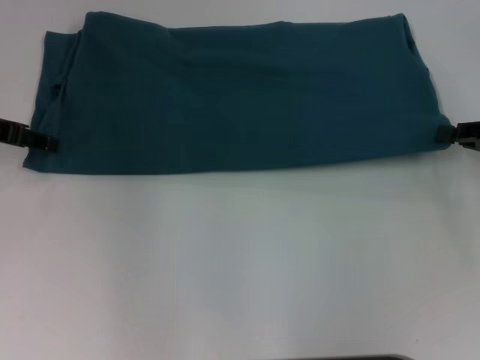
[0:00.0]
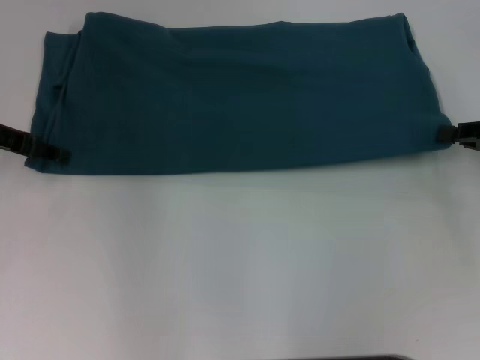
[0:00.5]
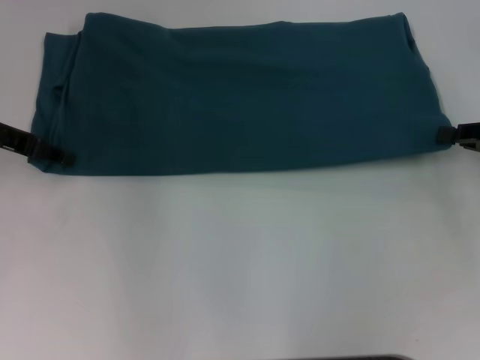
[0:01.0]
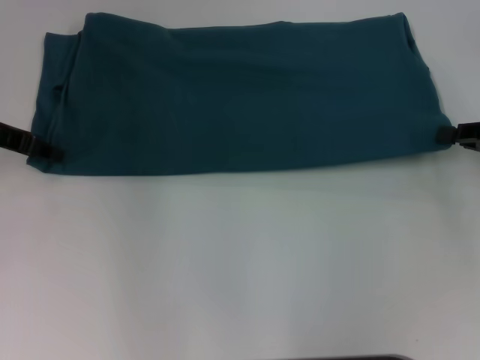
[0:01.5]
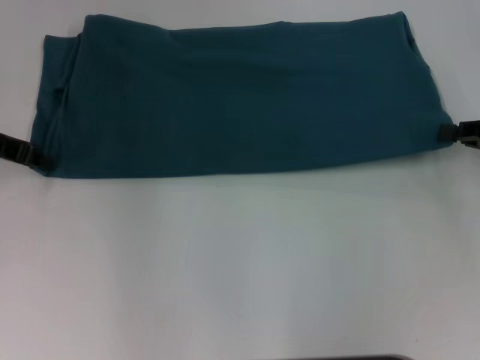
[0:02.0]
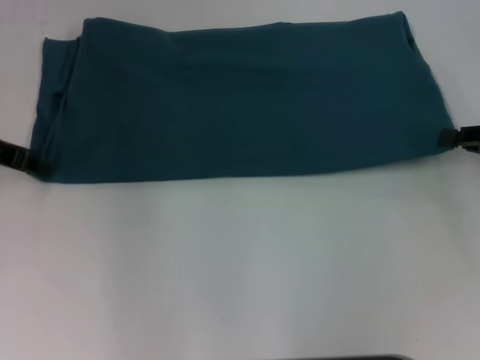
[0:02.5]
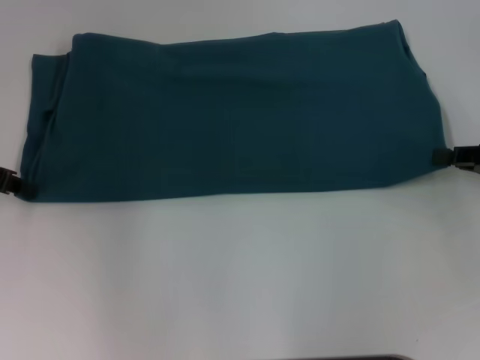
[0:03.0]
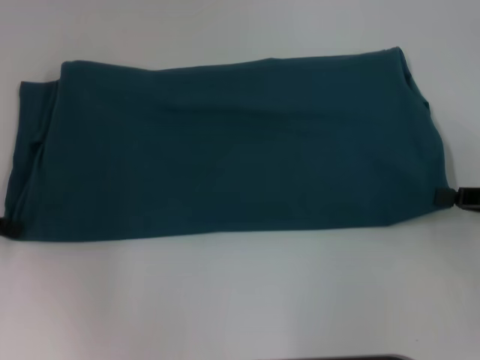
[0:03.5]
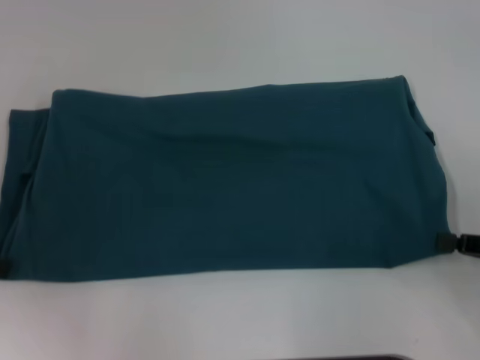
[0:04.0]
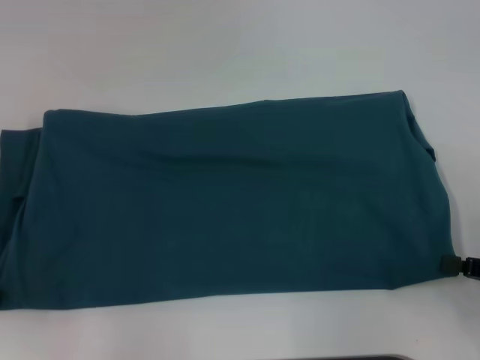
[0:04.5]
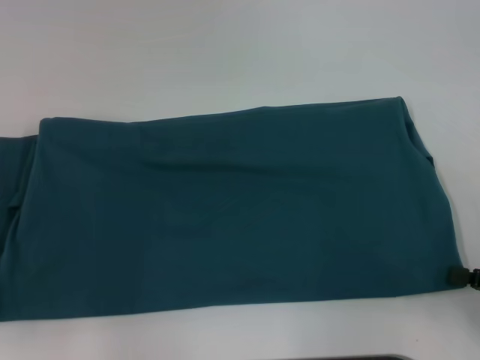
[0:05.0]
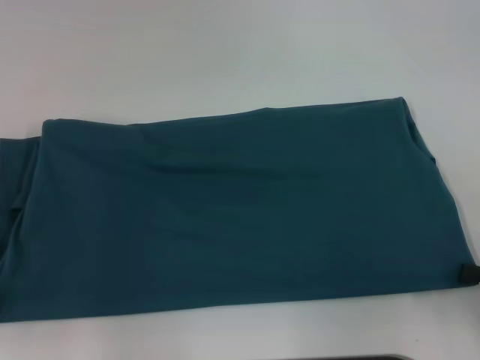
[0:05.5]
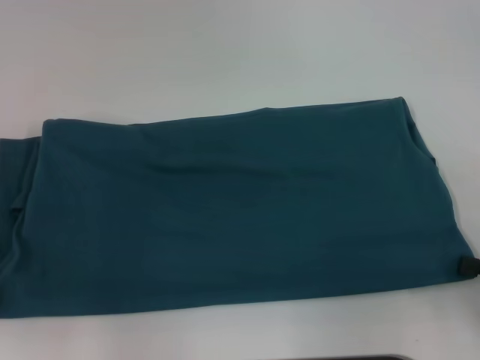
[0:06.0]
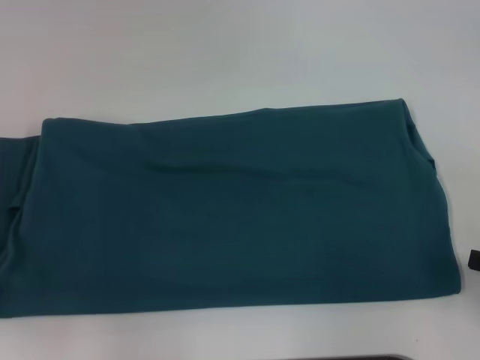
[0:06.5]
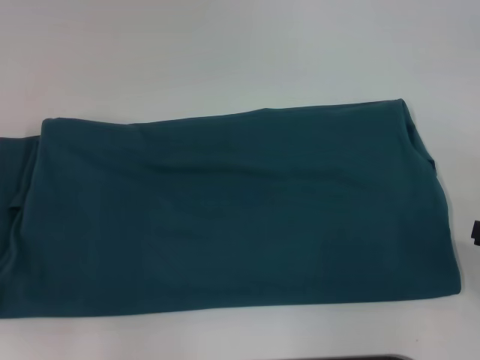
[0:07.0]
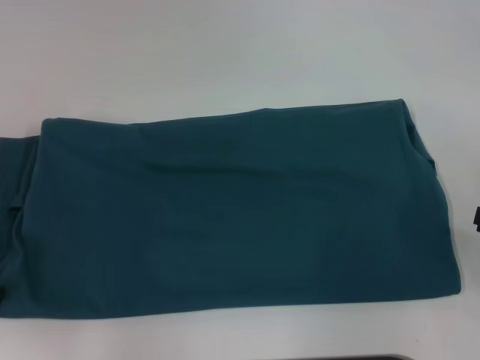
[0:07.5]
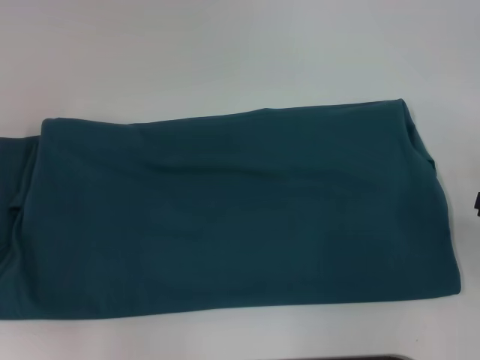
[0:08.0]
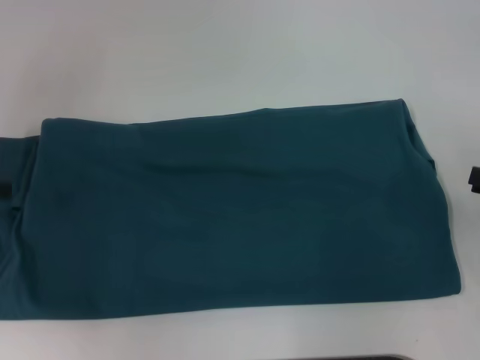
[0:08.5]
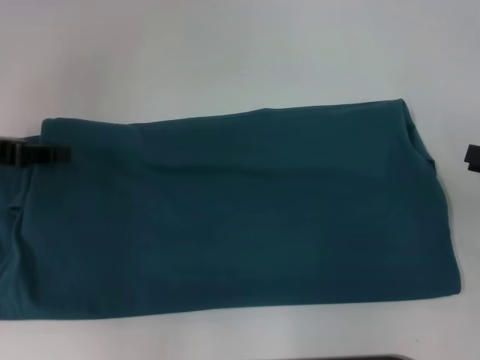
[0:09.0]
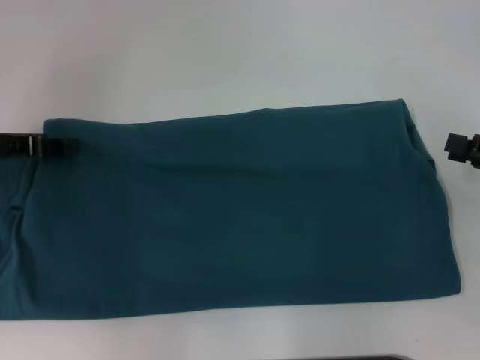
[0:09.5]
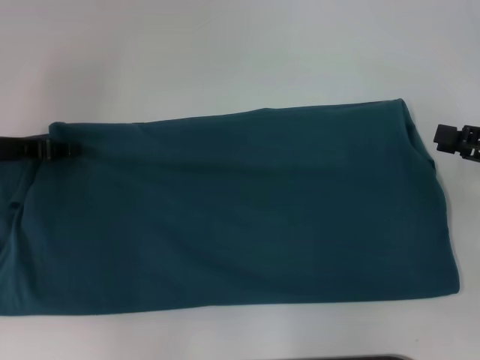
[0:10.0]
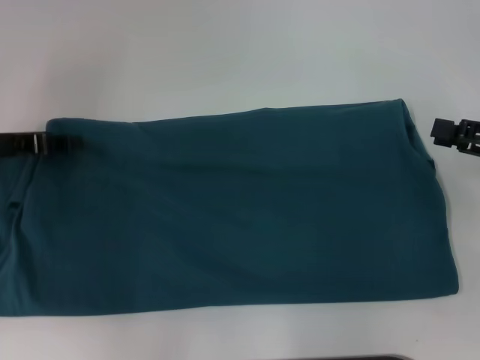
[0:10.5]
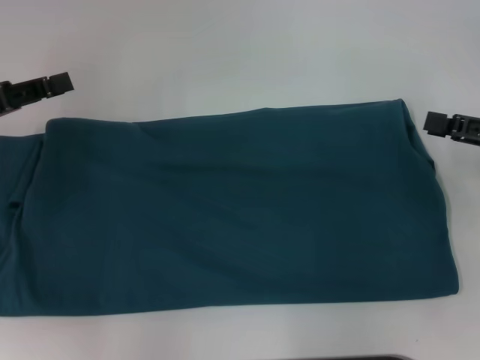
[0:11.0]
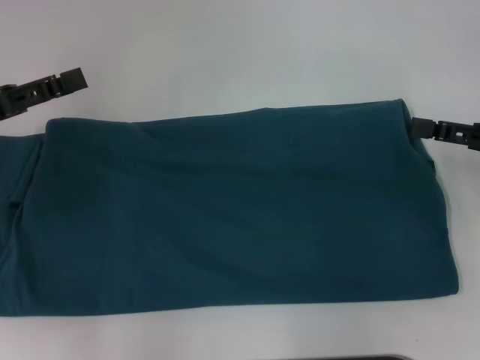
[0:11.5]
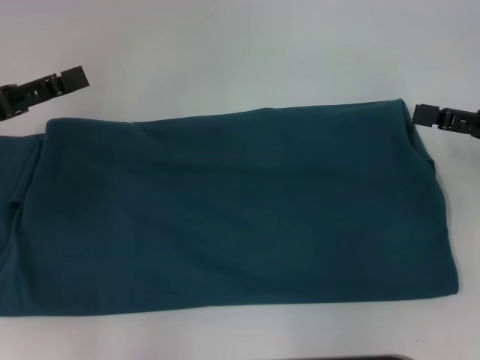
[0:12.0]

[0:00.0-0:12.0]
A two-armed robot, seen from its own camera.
Step, 0:00.0 to 0:05.5: Pull the clothes with your left hand.
Step, 0:00.0 to 0:05.5: Pull the clothes with your right hand.
0:00.0 to 0:02.0: The left gripper closes up.
0:02.0 to 0:04.0: The left gripper moves backward and to the left, roughly 15 cm; the right gripper shifts roughly 10 cm backward.
0:04.0 to 0:06.0: The grippers stay close to where they were, moving slightly.
0:06.0 to 0:08.0: The right gripper changes place by about 5 cm.
0:08.0 to 0:10.0: The right gripper heads forward, covering some 5 cm. Meanwhile the left gripper goes approximately 15 cm forward and to the right.
0:10.0 to 0:12.0: The right gripper opens its fingers, while the left gripper heads backward, covering roughly 5 cm, and opens.

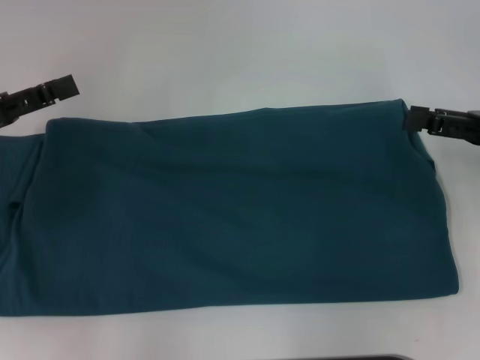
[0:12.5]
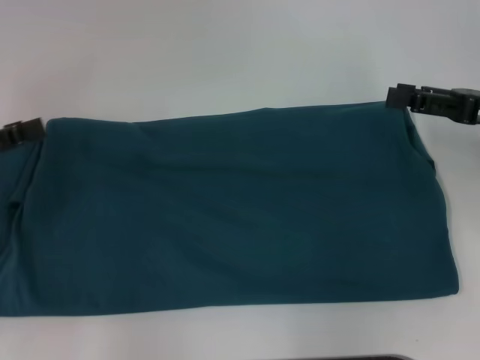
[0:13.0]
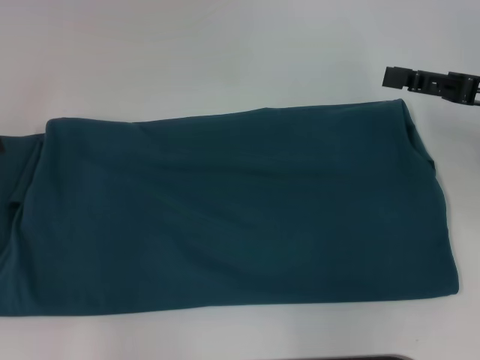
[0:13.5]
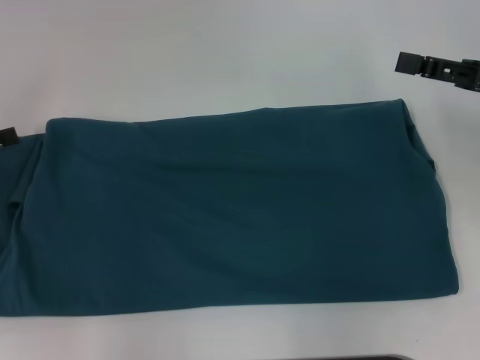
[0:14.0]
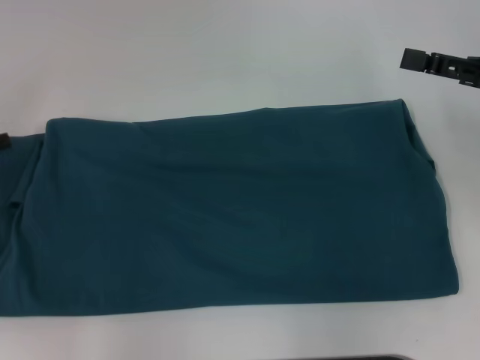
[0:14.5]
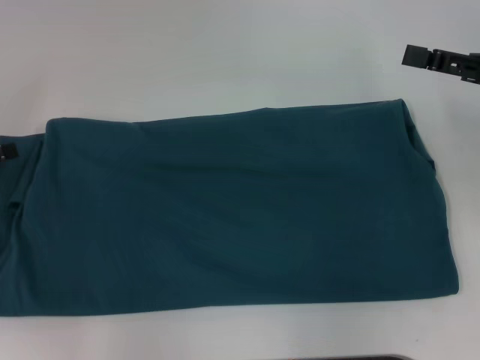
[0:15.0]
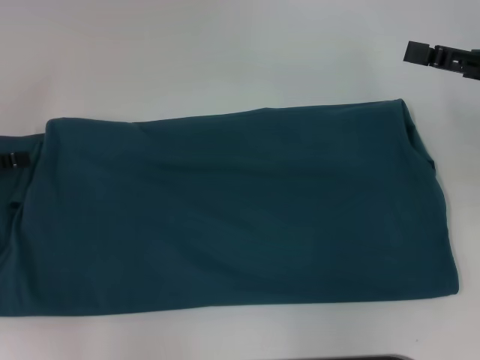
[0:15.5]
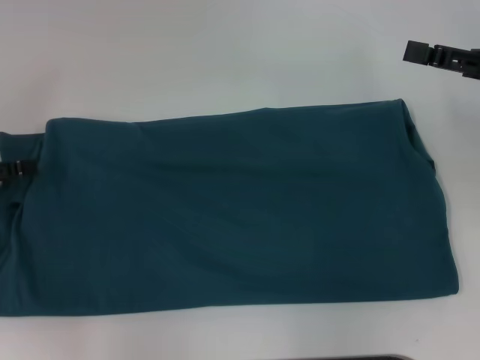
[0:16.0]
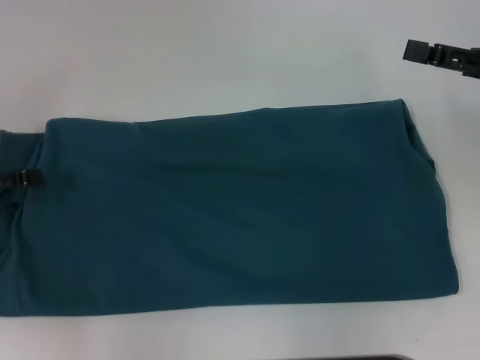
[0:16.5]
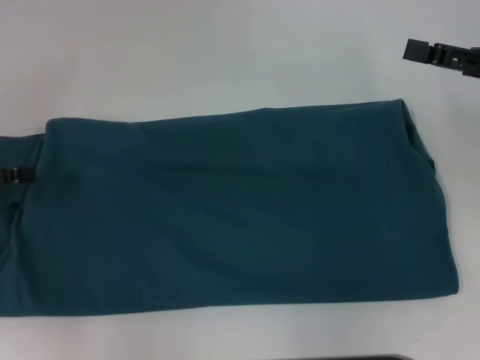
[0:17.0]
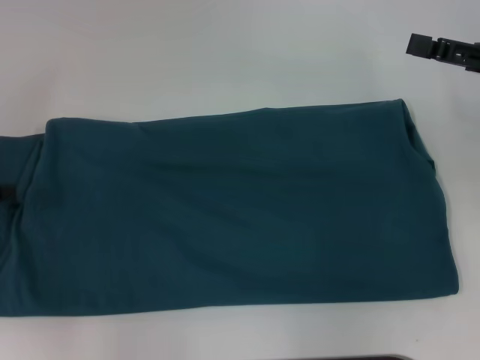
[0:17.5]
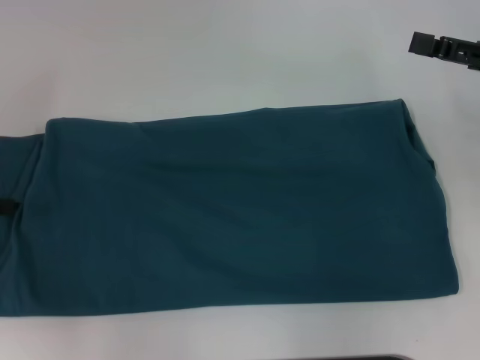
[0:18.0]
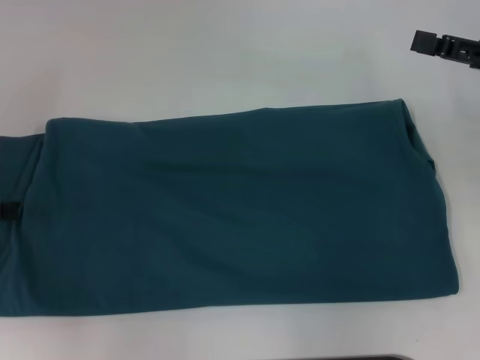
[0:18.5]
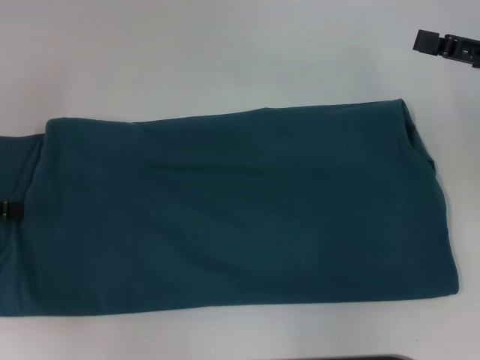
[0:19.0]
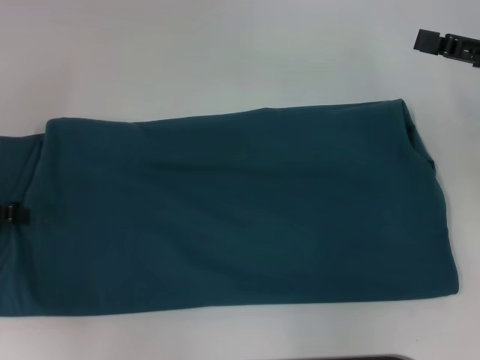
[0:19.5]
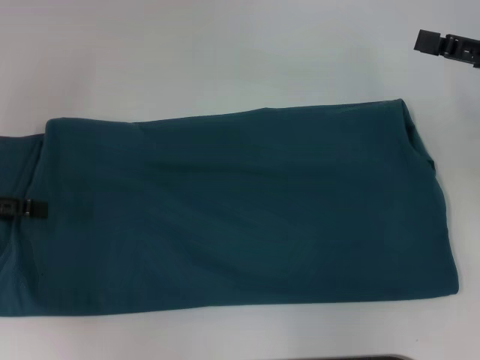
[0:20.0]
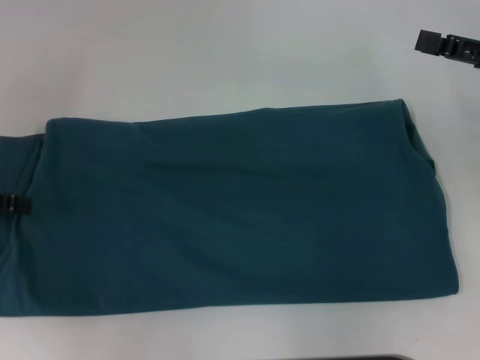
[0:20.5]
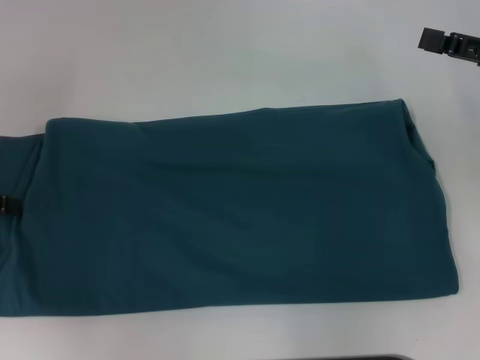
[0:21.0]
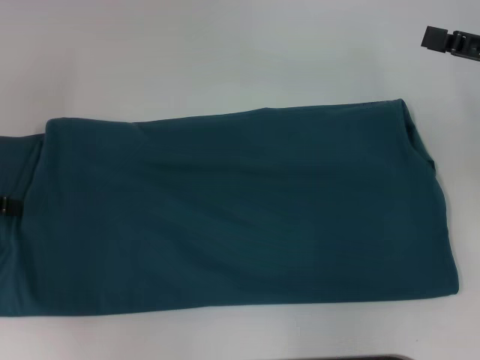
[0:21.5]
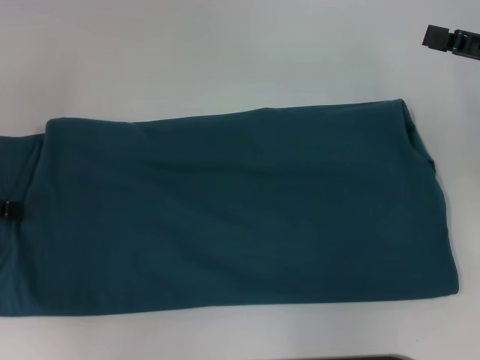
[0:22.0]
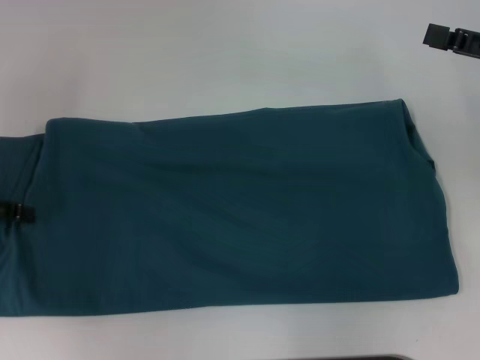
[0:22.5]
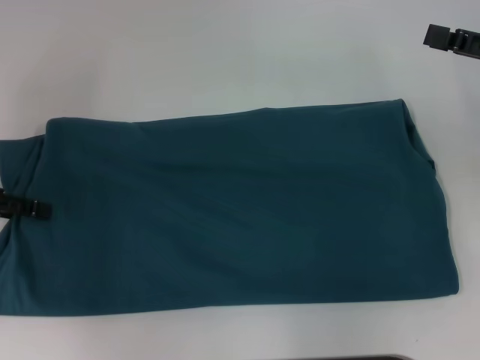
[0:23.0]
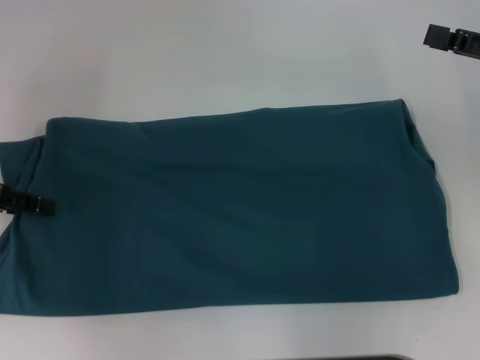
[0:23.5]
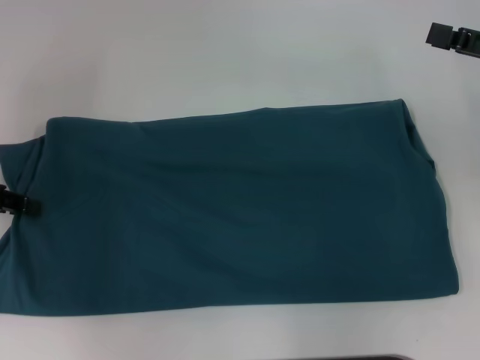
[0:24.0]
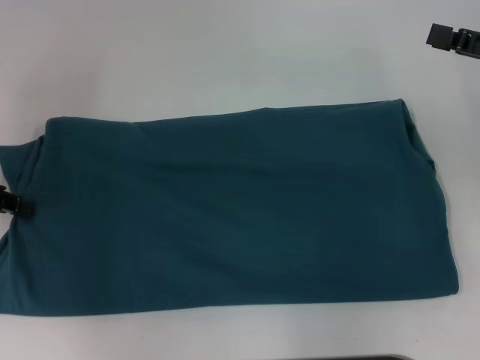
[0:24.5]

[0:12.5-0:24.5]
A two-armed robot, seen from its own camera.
0:12.5 to 0:14.5: The left gripper is displaced to the left by roughly 5 cm.
0:14.5 to 0:16.5: The grippers stay close to where they were, moving slightly.
0:16.5 to 0:18.5: The grippers make only small movements.

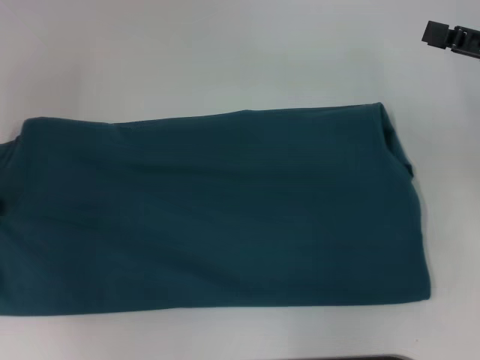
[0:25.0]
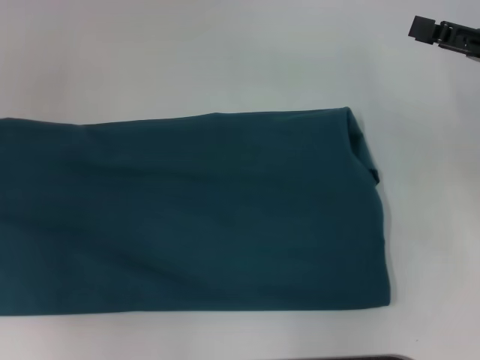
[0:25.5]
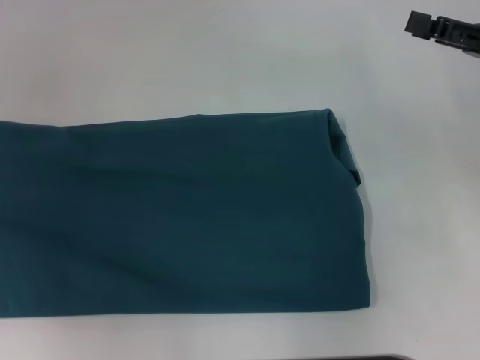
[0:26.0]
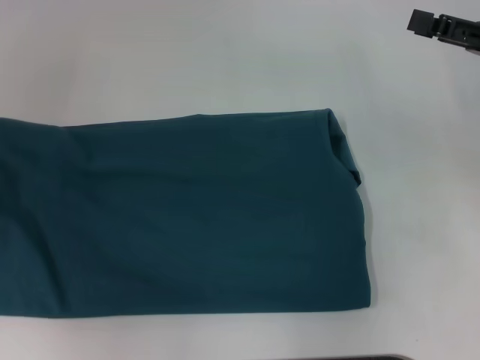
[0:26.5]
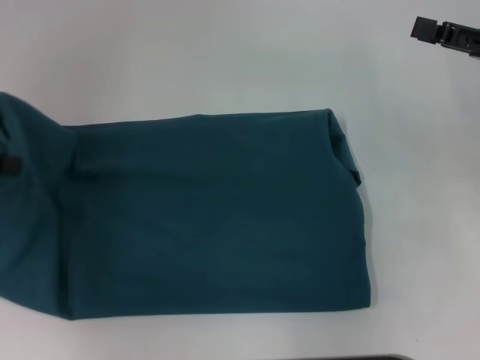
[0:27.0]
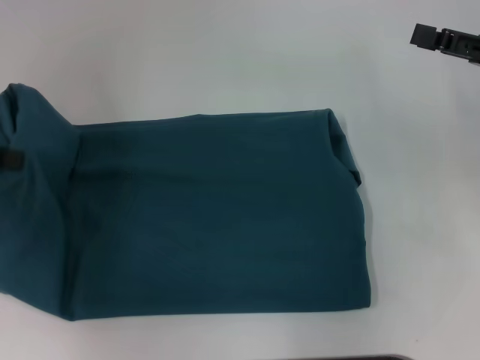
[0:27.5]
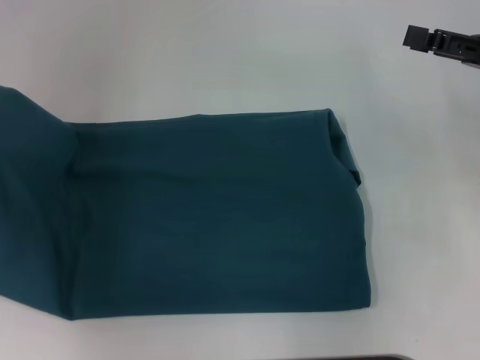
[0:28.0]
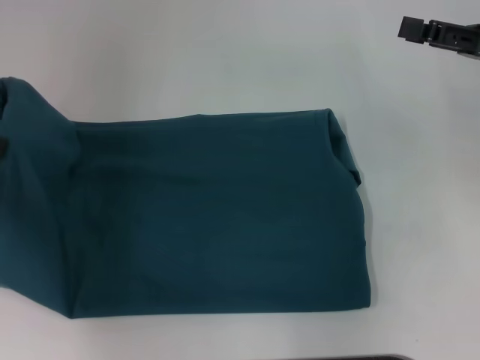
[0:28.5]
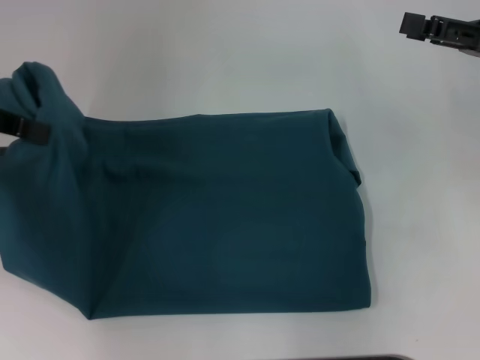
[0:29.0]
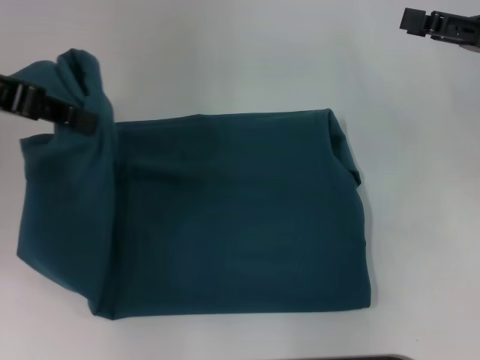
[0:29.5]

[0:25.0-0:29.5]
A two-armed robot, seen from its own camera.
0:25.0 to 0:27.0: There are only small adjustments of the grippers.
0:27.0 to 0:29.5: The left gripper shifts about 10 cm to the right and upward.
